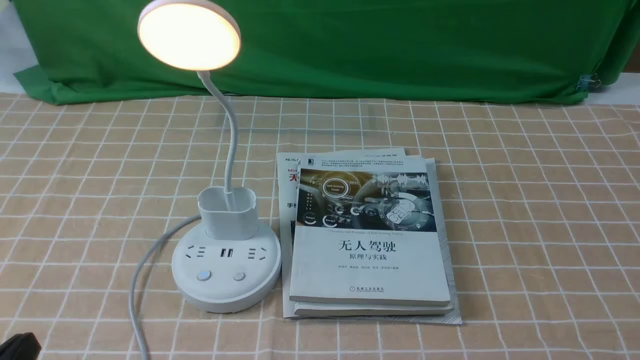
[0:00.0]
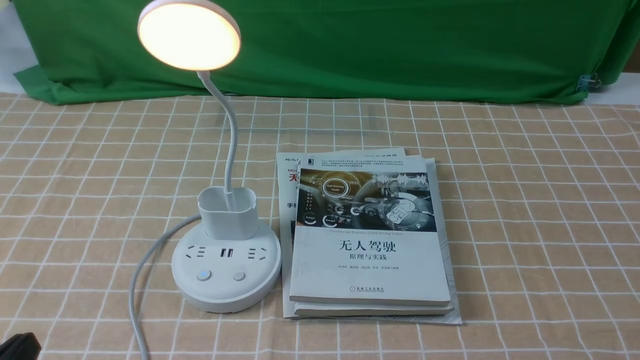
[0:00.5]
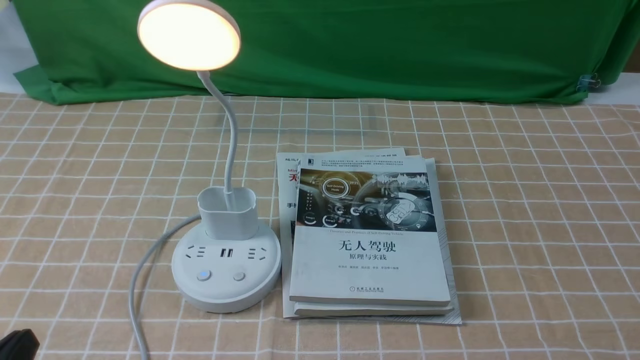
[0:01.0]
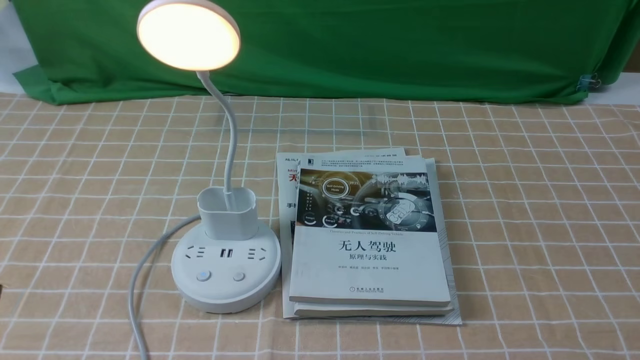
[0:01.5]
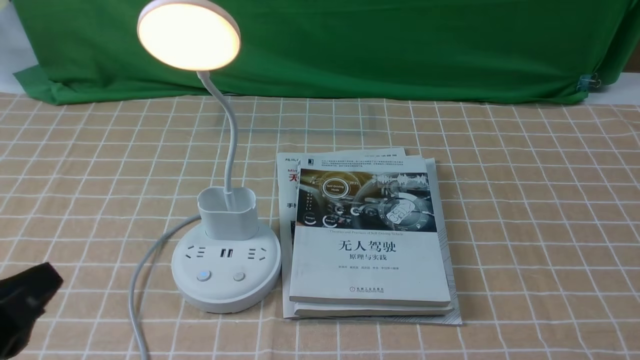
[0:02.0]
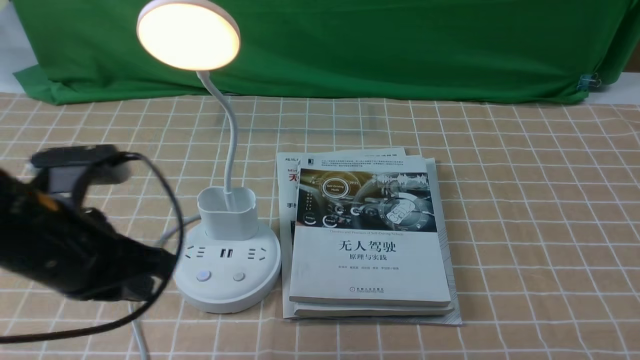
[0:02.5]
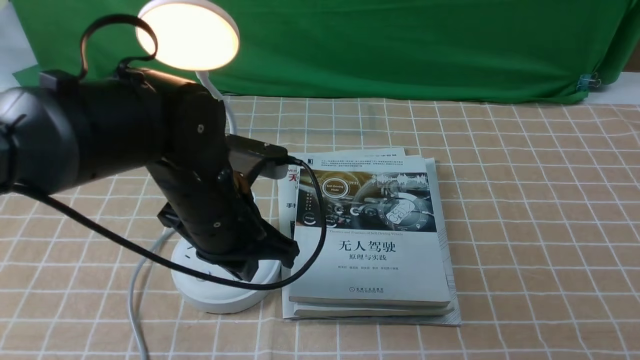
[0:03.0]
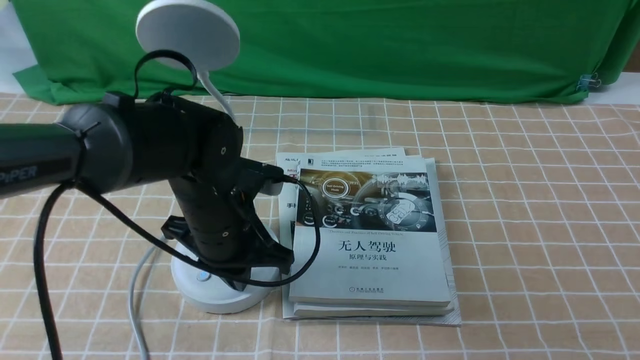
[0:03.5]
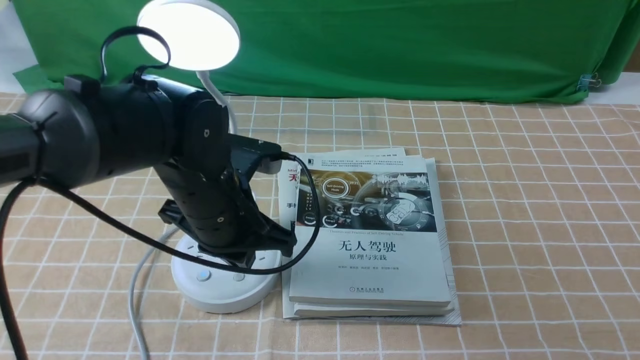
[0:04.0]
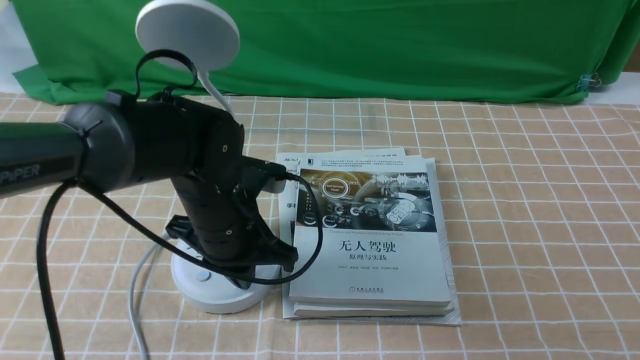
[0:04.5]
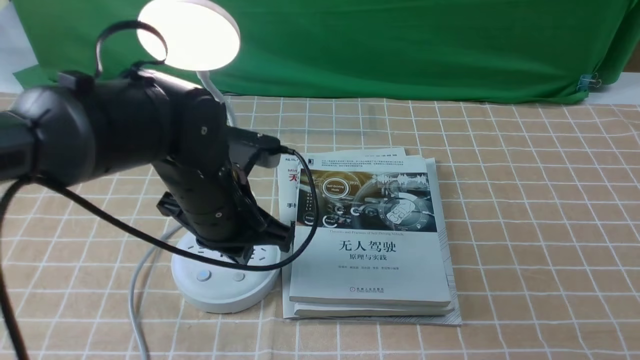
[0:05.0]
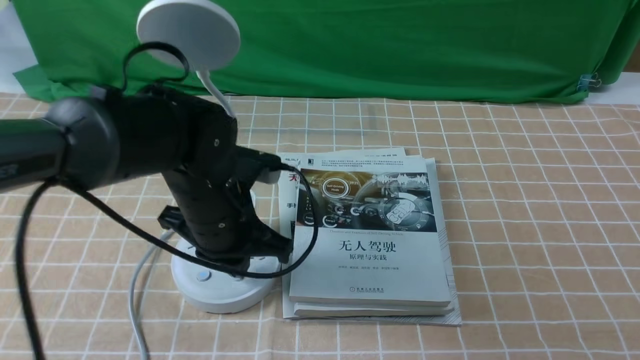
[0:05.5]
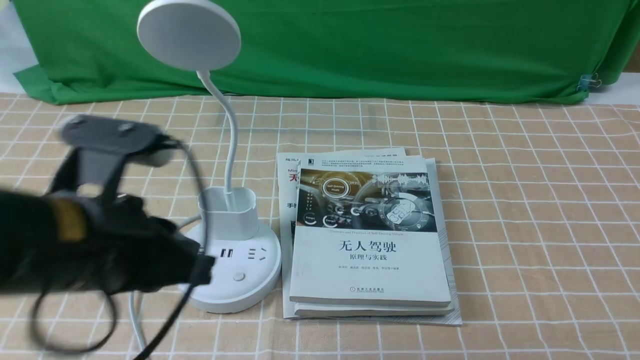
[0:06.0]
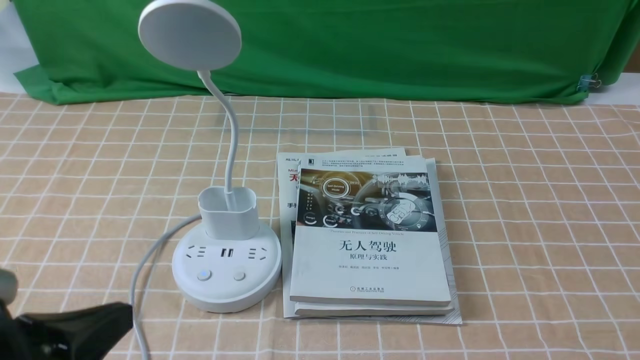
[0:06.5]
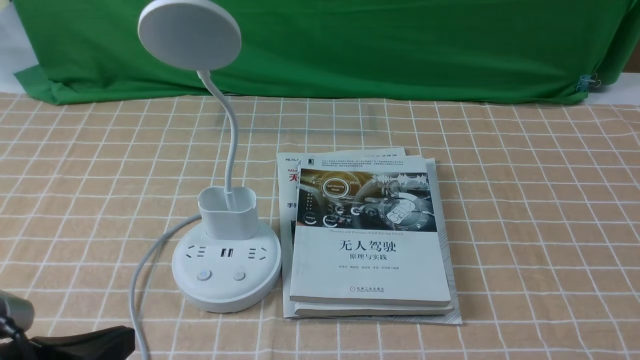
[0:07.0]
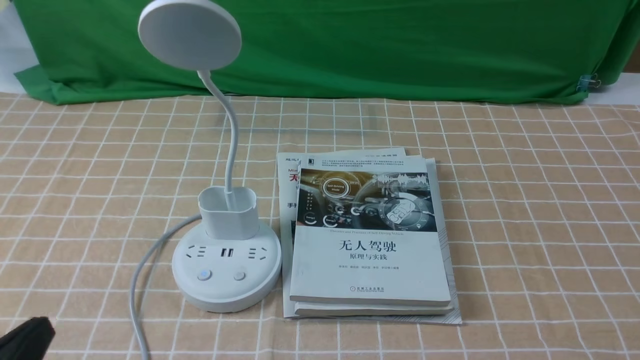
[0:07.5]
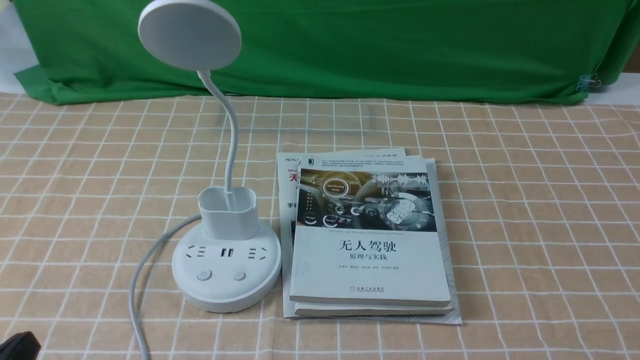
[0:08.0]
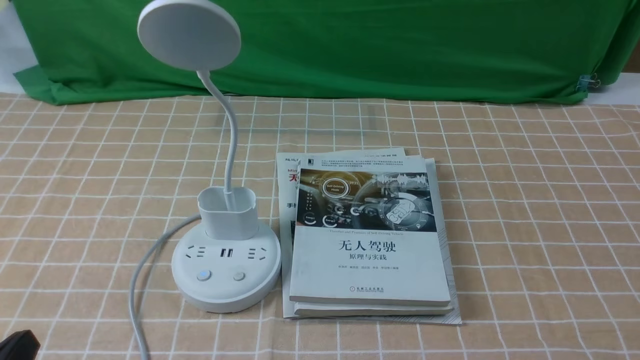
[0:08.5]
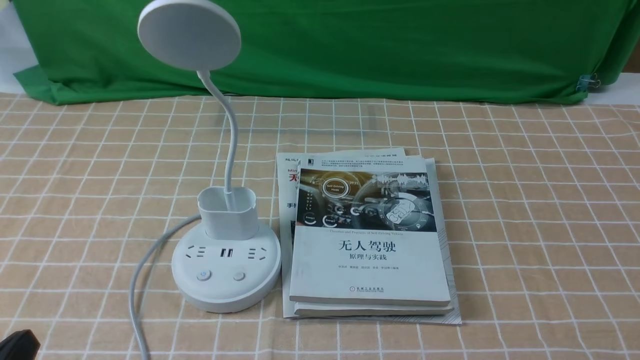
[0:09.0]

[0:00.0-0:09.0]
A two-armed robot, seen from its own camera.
Task of the whole recording: turn off the desk lamp on the light coffee tablecloth by hand.
Step, 0:00.0 to 0:05.5: use the left arm to press the button switch on the lamp holder.
0:00.0 to 0:02.0: The left gripper goes roughly 10 cm upward.
0:02.0 to 0:04.5: The left gripper heads forward and to the right, covering about 25 cm, and closes up.
0:04.5 to 0:07.0: The left gripper is displaced backward and to the left by about 25 cm.
0:07.0 to 0:09.0: The left gripper shifts by about 5 cm.
